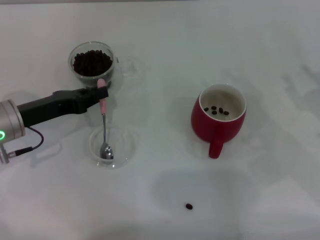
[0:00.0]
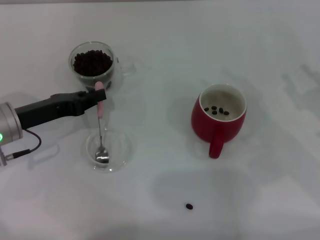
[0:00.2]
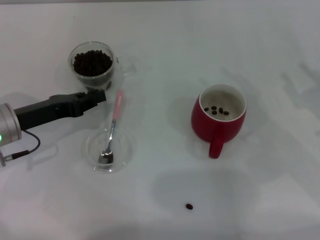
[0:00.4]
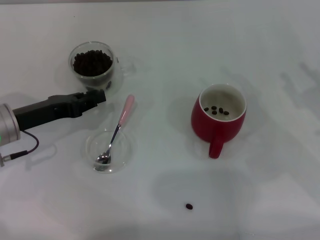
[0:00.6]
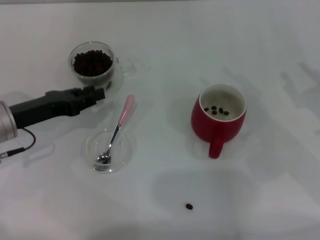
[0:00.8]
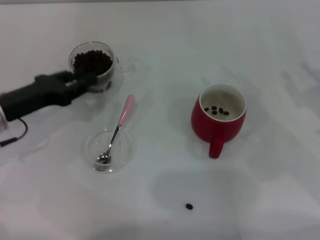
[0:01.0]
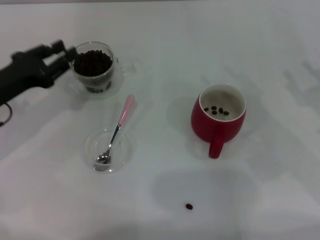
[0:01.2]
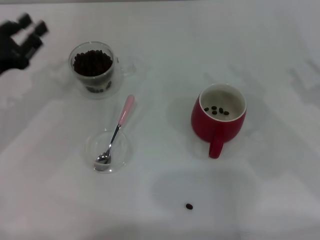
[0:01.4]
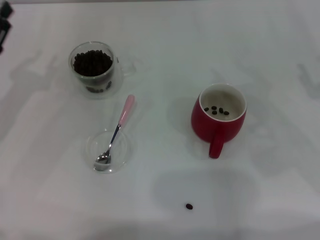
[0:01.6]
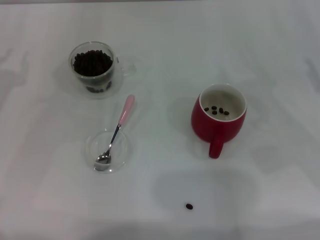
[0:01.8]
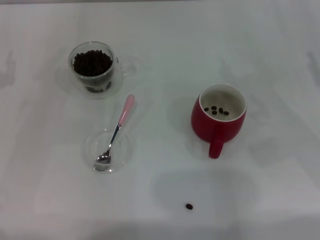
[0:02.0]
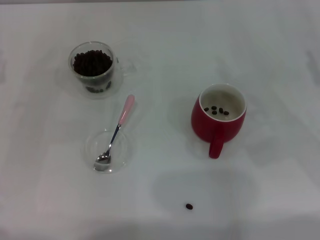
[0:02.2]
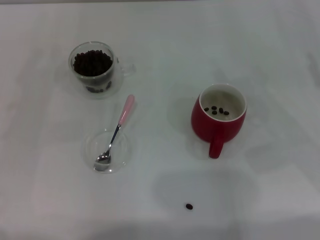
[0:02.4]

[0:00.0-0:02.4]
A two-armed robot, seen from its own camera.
Task of the whole recording: Use a pink spoon to take out the coffee beans from the glass and pour them into the red cup.
1.2 to 2.4 s: The left gripper travels to the left by about 5 cm.

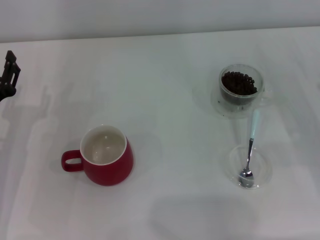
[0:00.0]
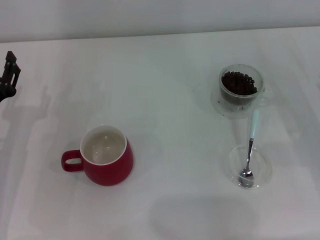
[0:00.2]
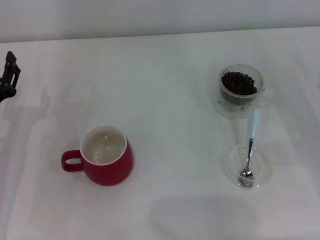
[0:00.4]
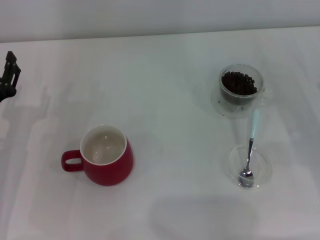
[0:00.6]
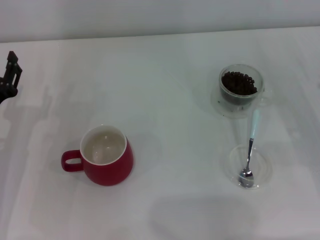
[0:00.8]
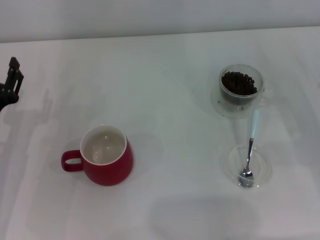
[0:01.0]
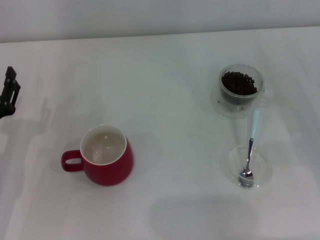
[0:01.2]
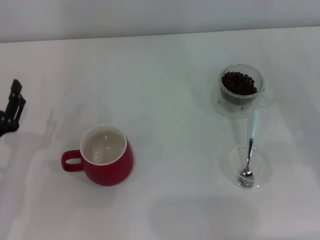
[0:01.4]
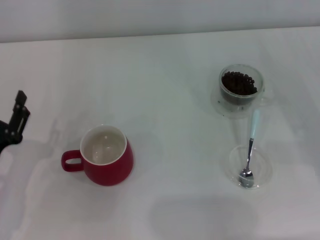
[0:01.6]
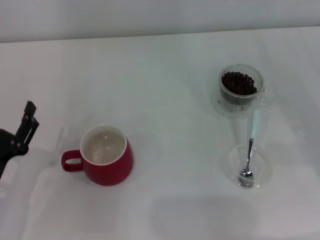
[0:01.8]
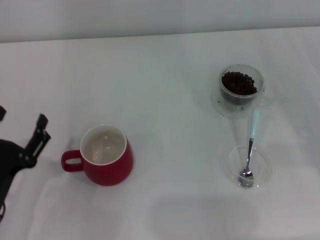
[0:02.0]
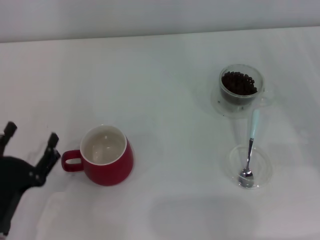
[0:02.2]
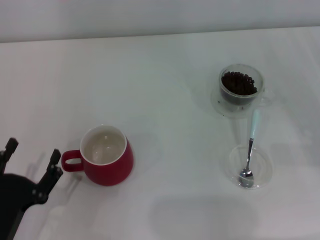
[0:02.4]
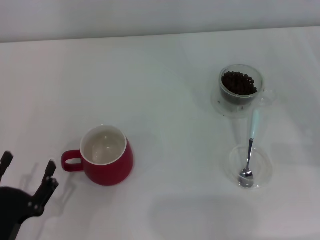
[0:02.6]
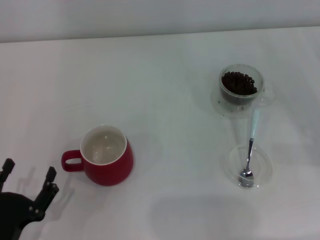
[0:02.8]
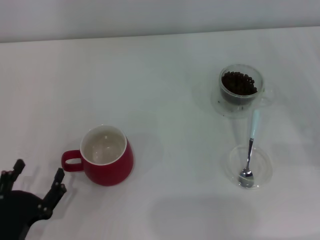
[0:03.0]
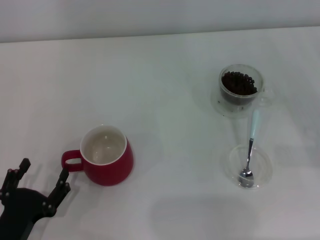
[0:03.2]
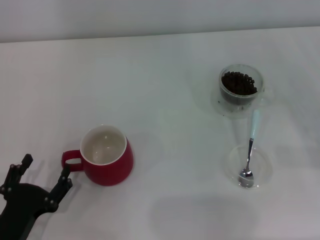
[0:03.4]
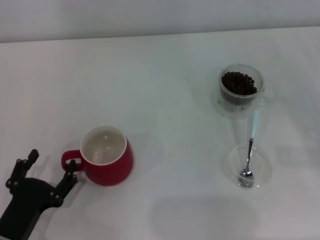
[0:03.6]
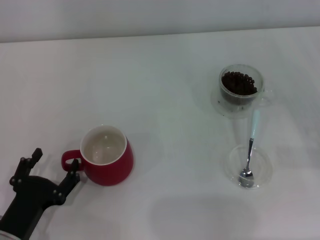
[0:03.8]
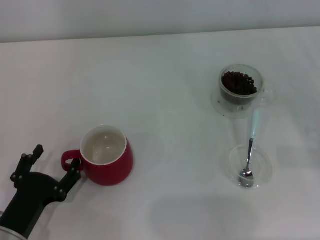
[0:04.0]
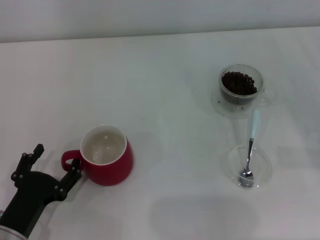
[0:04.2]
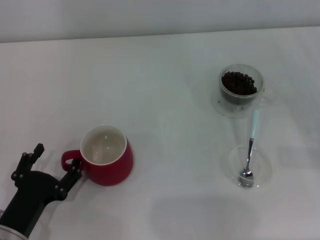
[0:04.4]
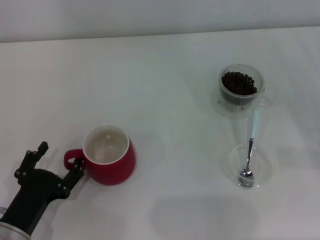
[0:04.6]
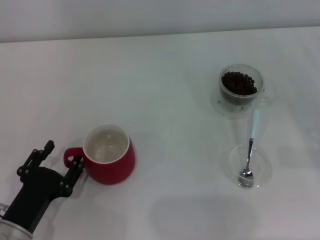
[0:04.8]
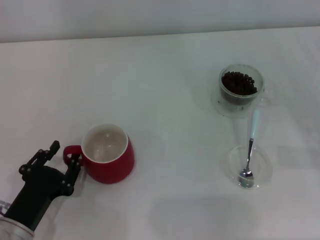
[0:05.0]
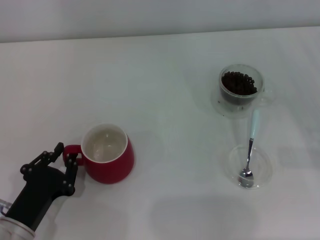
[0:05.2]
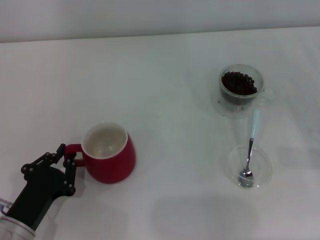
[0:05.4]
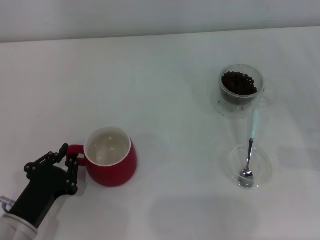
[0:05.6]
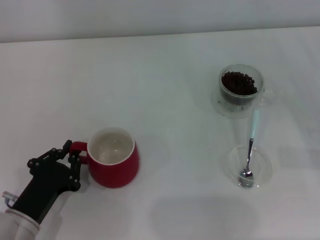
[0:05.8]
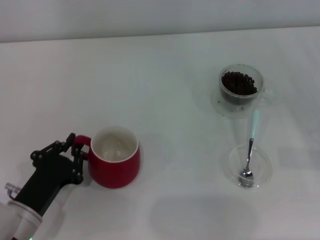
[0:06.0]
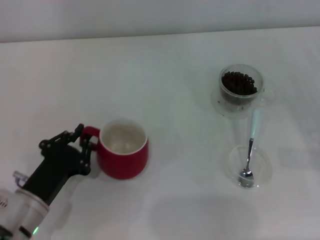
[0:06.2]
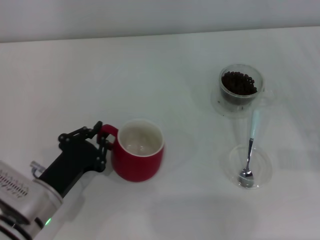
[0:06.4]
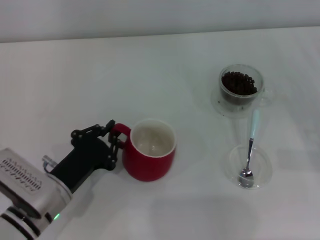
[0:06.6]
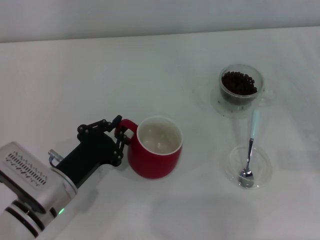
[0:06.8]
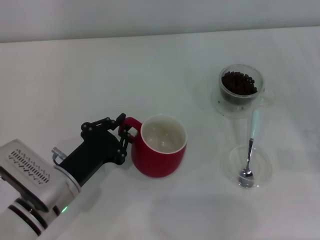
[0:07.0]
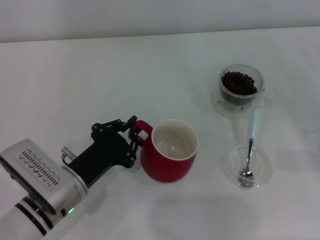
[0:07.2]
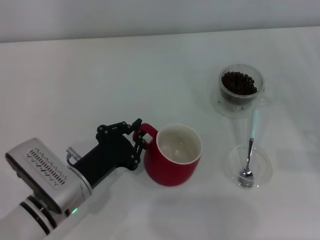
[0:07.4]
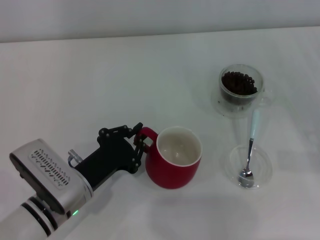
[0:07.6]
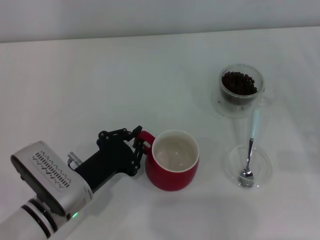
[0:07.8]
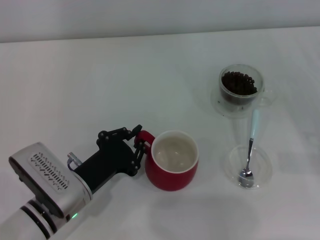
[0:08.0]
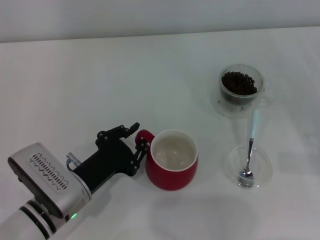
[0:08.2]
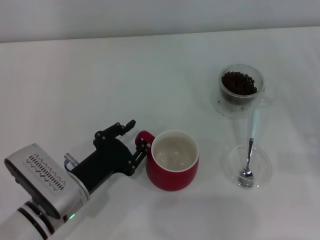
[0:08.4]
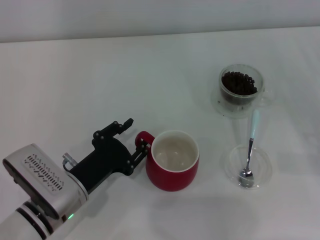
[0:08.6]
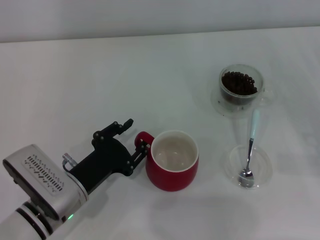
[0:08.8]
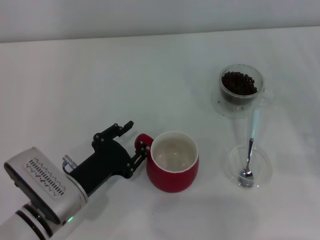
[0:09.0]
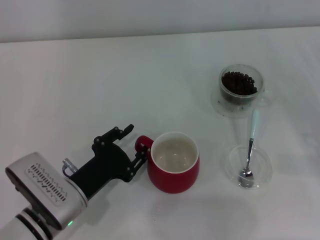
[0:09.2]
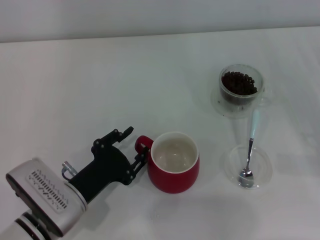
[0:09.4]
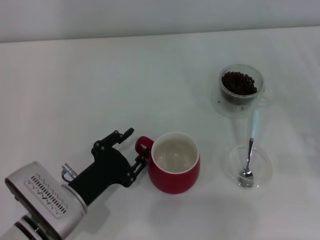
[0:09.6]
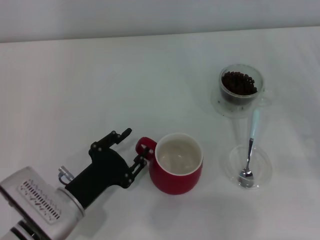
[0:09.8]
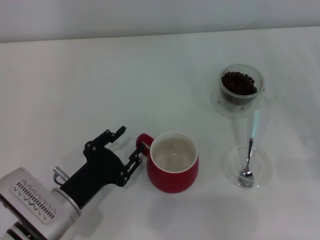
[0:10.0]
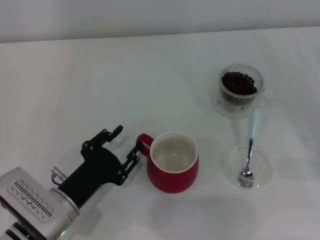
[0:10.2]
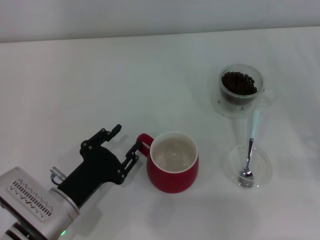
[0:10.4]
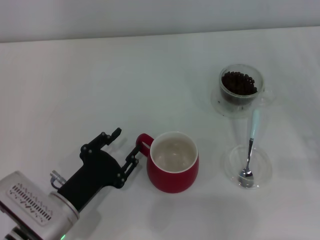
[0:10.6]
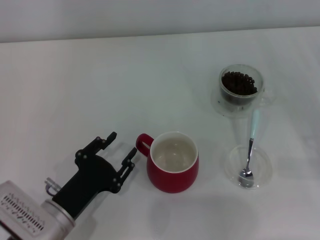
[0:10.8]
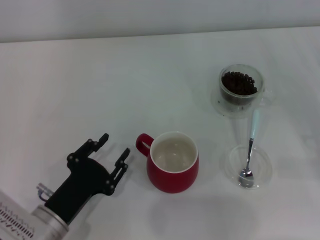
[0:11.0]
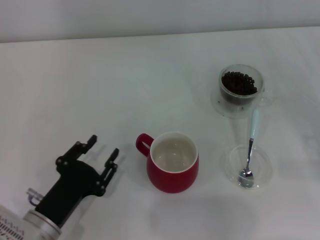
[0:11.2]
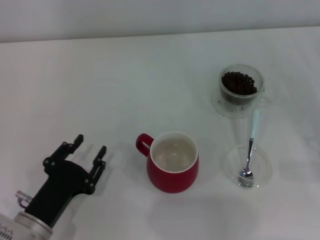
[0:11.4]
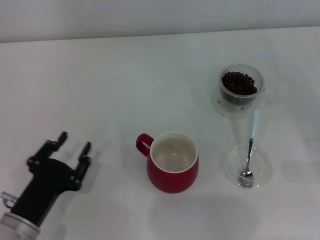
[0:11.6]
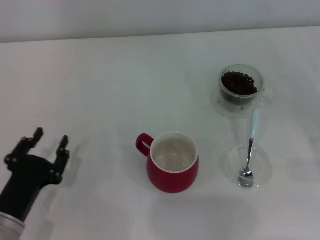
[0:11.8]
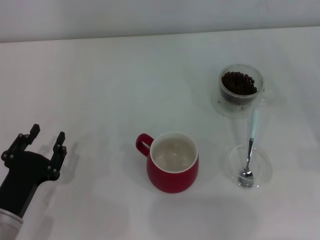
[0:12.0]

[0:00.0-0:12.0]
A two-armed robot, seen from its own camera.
Task of the whole recording: Use a blue spoon to take out the coffee beans from the glass and pour them into the red cup.
Step, 0.0 to 11.0 s: Move the cup to the center of view with the left gripper.
0.0 to 1.6 s: The left gripper moves backward, about 5 cm.
1.6 to 3.0 s: The left gripper shifts roughly 10 cm backward.
3.0 to 4.4 s: The grippers make only small movements.
4.4 to 6.0 s: The left gripper closes its fingers.
6.0 to 7.6 s: The left gripper shifts about 5 cm to the right.
7.6 to 9.0 s: The left gripper opens up.
9.0 to 10.4 s: The grippers stay close to where they were, moving slightly.
10.4 to 12.0 s: The left gripper travels to the left by roughly 5 cm.

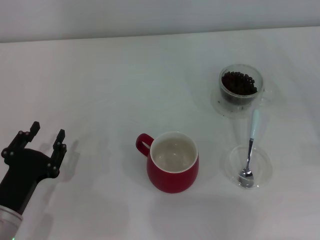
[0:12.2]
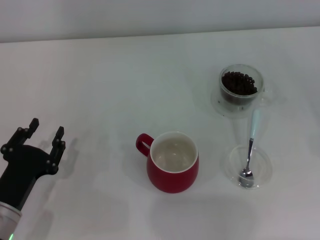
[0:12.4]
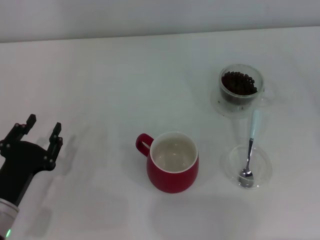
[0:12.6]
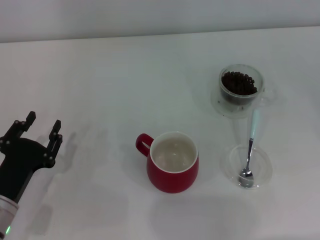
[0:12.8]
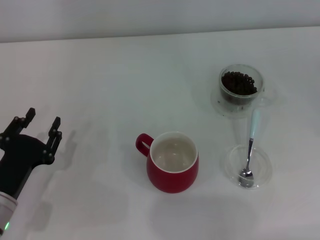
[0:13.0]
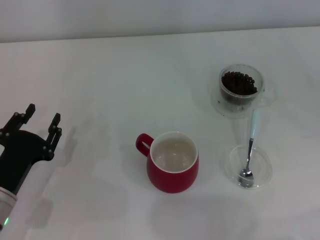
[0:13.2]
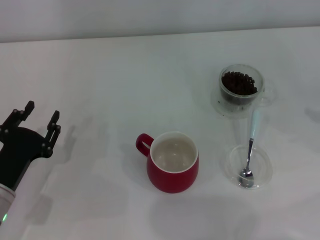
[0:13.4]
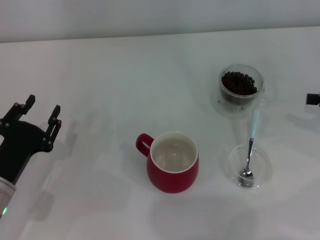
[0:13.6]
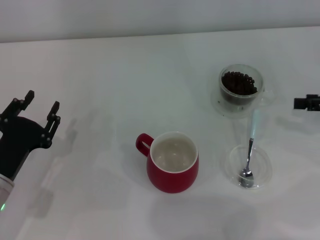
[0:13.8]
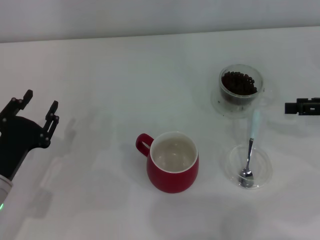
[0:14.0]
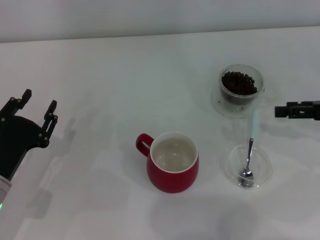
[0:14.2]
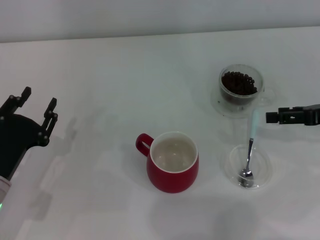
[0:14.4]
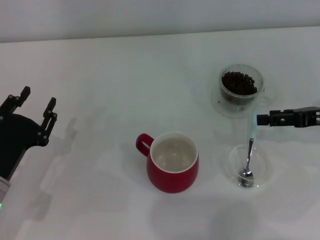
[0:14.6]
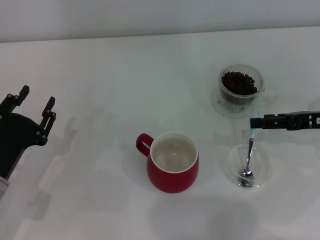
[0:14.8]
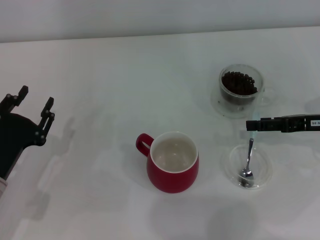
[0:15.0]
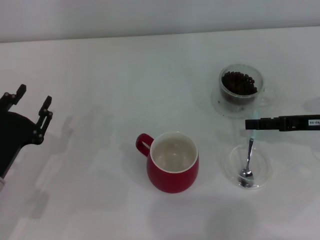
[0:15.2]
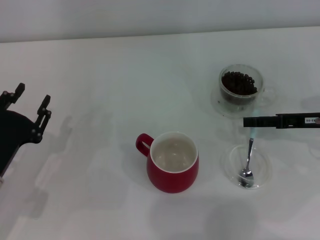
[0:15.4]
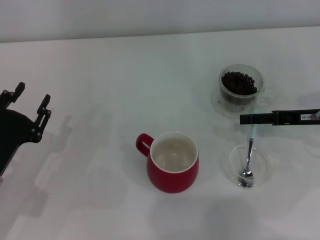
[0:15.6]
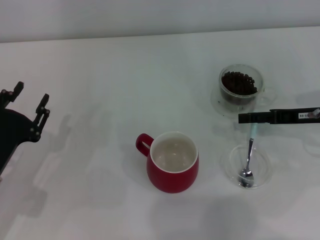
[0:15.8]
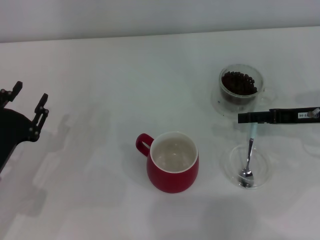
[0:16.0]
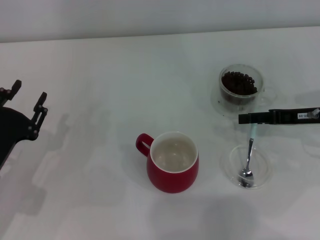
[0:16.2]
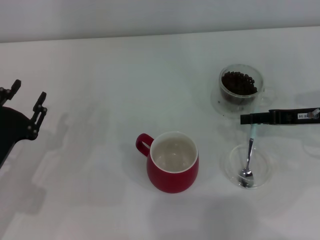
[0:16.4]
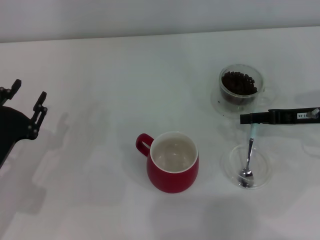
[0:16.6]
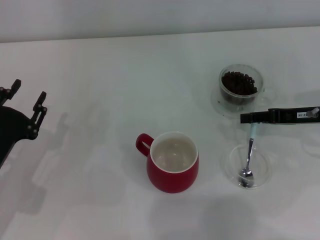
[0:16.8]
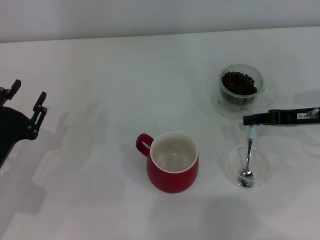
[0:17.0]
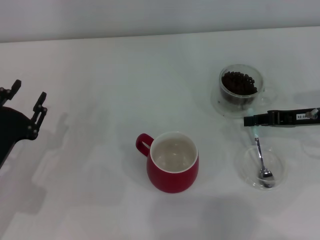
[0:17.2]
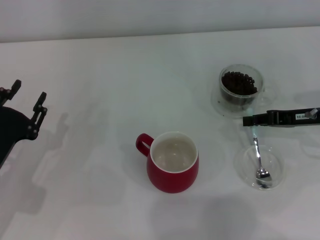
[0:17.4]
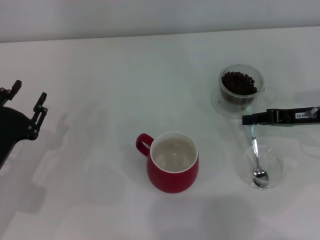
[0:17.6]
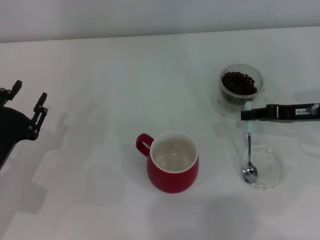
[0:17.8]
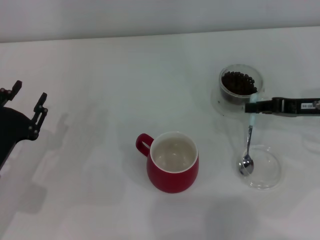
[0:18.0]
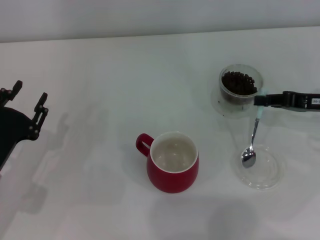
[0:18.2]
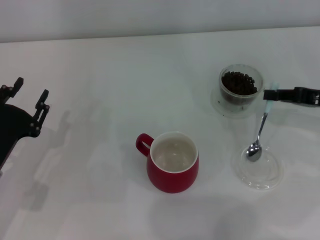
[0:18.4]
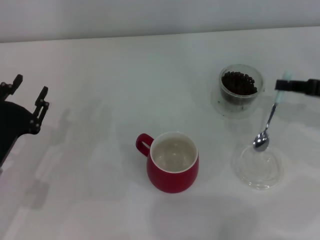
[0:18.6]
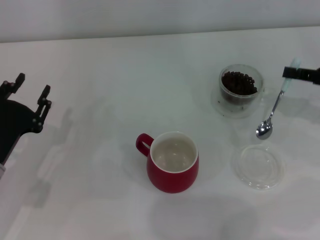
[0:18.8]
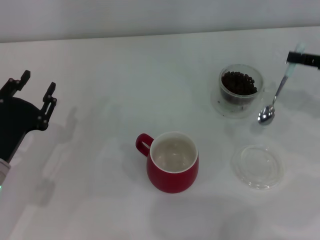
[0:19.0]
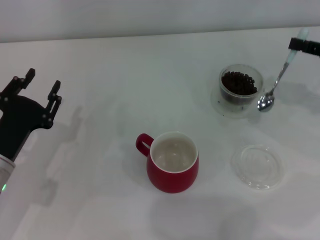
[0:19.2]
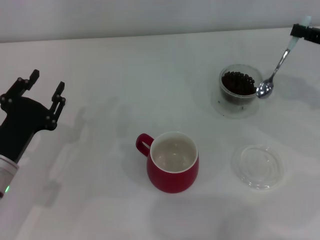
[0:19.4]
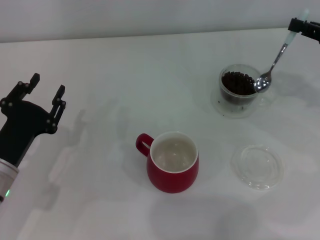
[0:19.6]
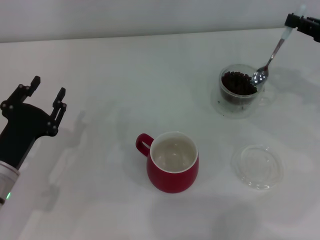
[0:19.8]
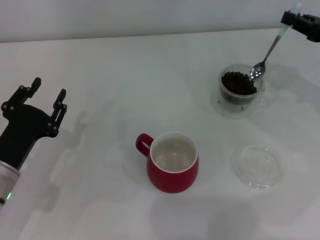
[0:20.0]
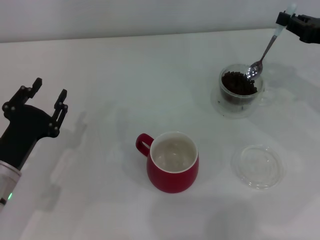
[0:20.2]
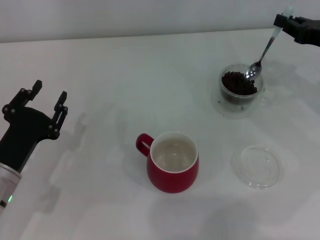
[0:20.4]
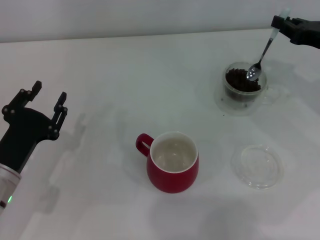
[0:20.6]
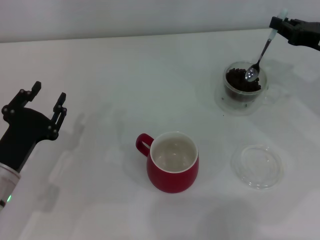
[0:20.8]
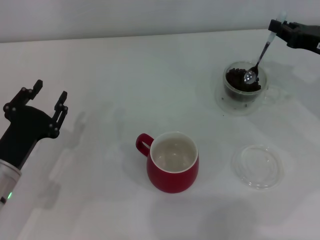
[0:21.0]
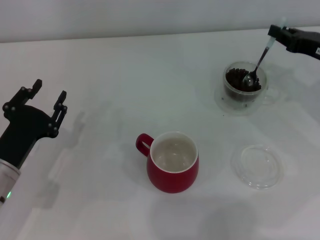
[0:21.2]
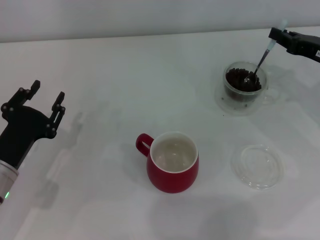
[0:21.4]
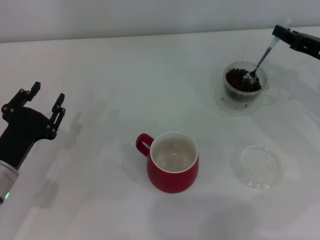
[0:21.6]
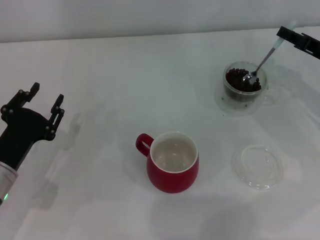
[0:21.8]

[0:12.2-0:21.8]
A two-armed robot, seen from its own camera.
Task of the whole recording: Use a blue spoon to take out the coffee beans from the glass and pour them into the red cup.
Step, 12.2 to 18.6 s: Pick up the spoon with the right gripper.
12.2 to 13.8 s: The left gripper ends up about 5 cm from where it was.
13.8 to 15.4 s: The right gripper travels to the left by roughly 5 cm.
15.4 to 17.0 s: The right gripper closes up.
17.0 to 18.6 s: The right gripper ends up approximately 5 cm from where it was, and closes.
18.6 to 20.2 s: The right gripper shifts by about 5 cm.
